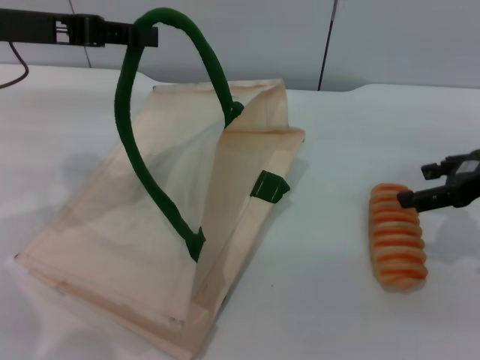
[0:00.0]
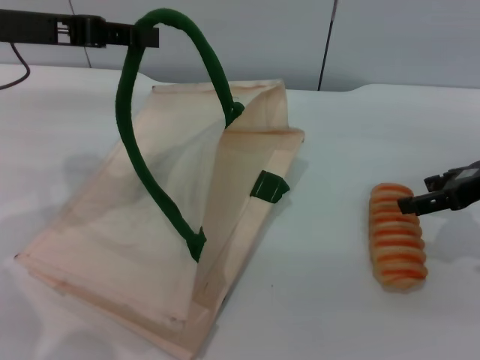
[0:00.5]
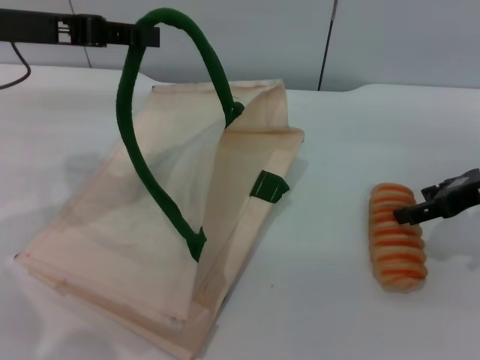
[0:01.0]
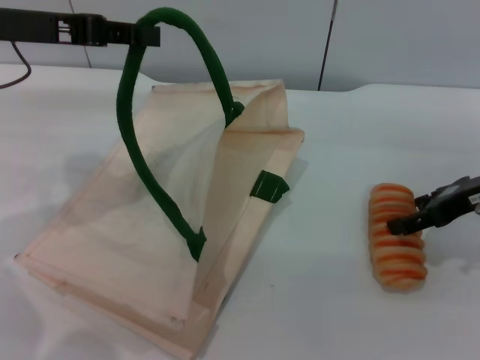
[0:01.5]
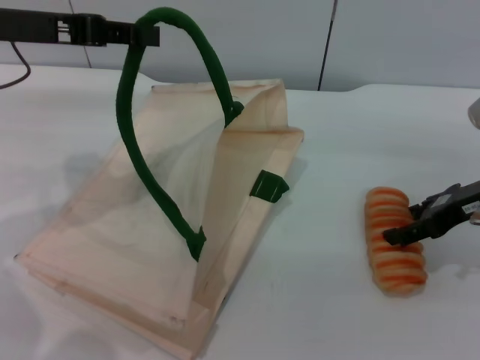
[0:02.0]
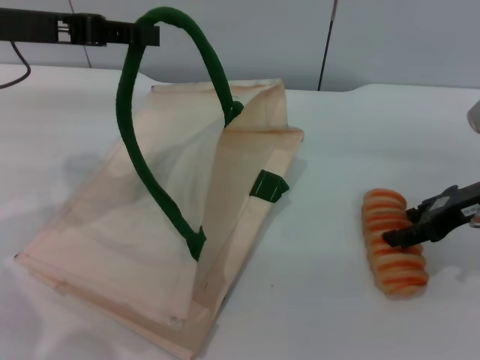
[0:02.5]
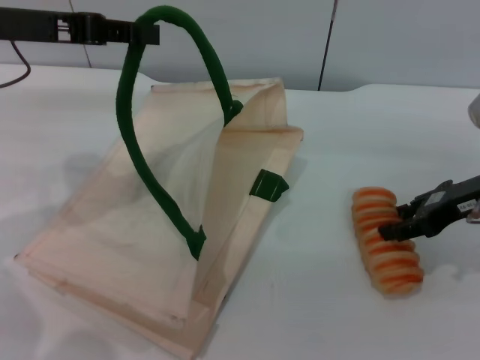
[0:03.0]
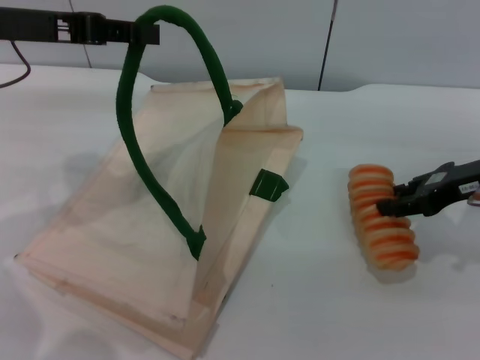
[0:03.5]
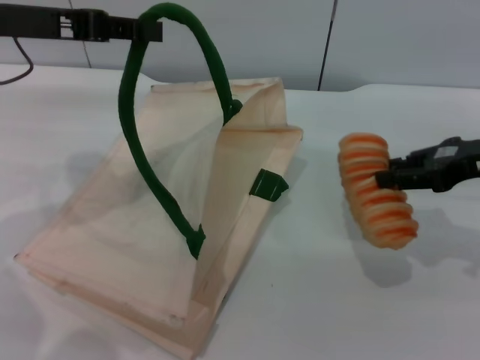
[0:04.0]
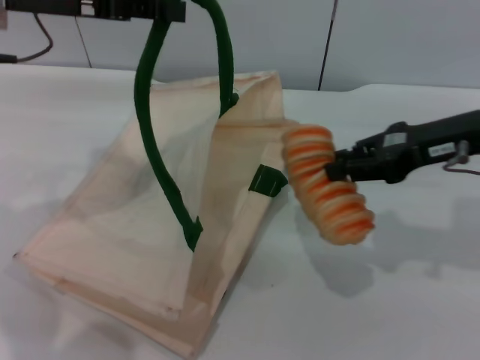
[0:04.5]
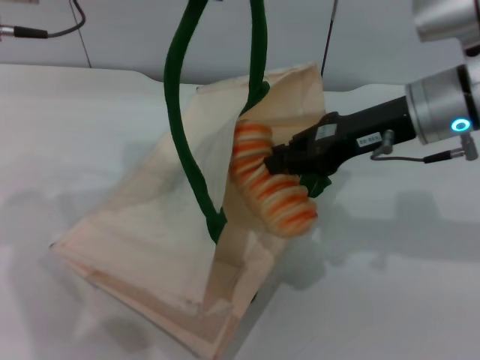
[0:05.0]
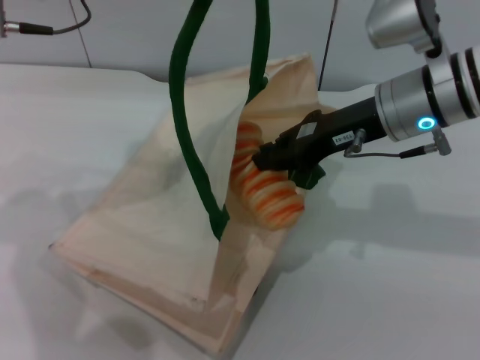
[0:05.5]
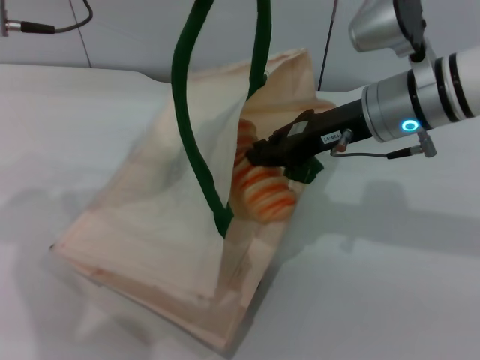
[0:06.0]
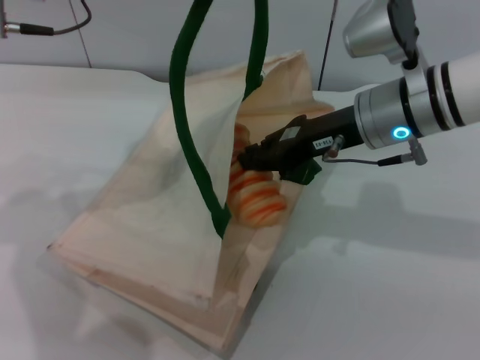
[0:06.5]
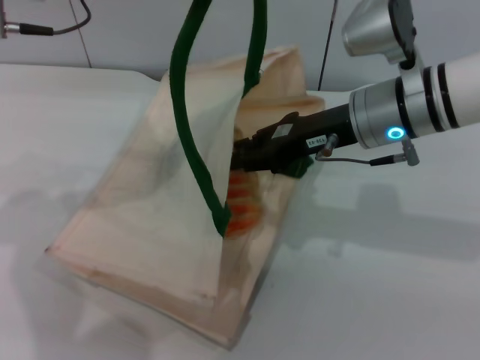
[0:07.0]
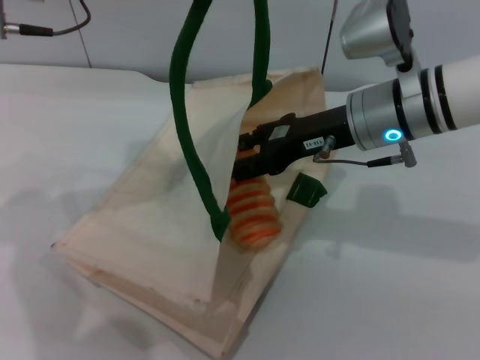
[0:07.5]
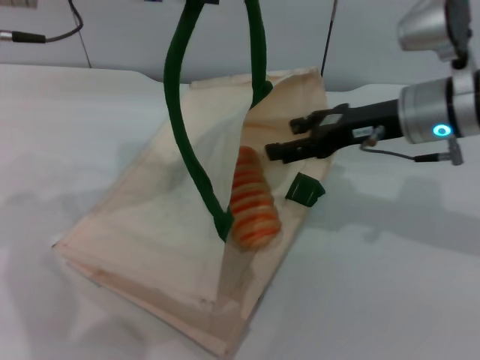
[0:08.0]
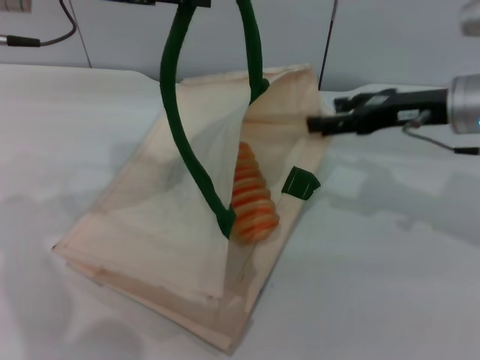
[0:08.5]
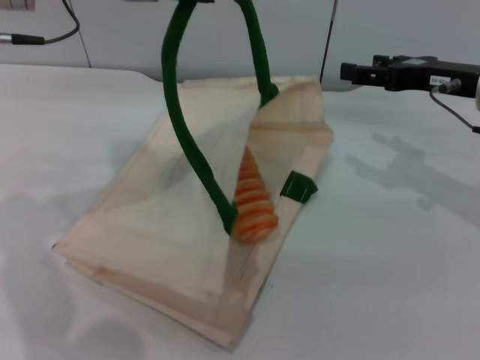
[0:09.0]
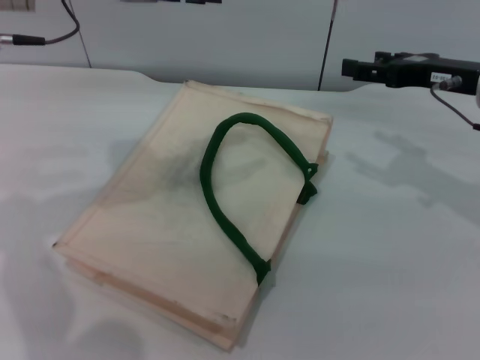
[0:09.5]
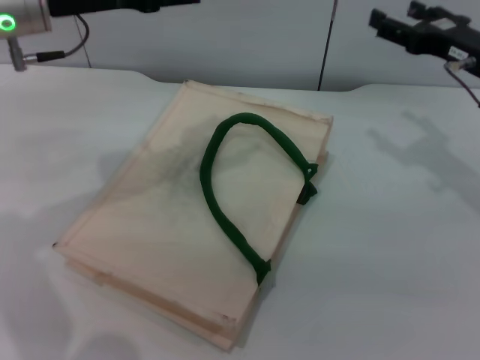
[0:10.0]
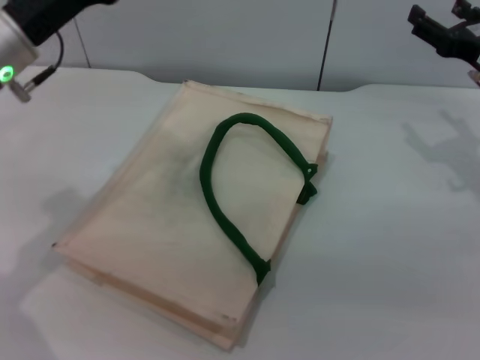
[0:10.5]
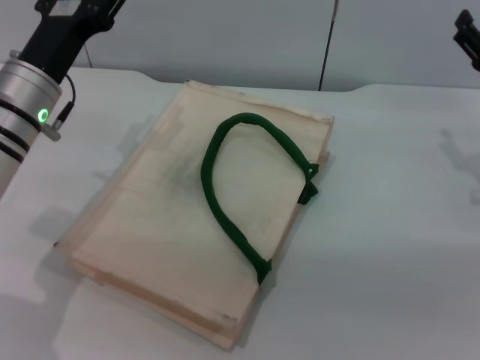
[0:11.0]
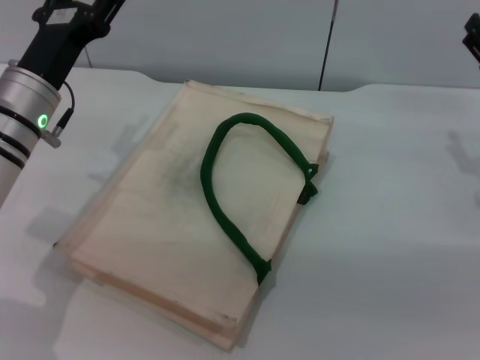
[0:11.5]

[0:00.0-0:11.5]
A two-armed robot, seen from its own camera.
Task of the whole recording: pick up the bread from the table and place it in the white handbag.
Step, 0:00.0 to 0:03.5: Pick up the bread with the right gripper.
Step, 0:04.0 to 0:08.0: Place the bread into the woven bag with the right gripper.
Step, 0:08.5 to 0:10.5: Lower the woven bag with the left gripper to close it.
0:00.0 to 0:02.0: There are only small adjustments of the grippers.
0:02.0 to 0:04.0: The right gripper closes up.
0:04.0 to 0:06.0: The right gripper moves to the left, about 15 cm. Meanwhile the left gripper shifts some 5 cm to the right.
0:06.0 to 0:07.5: The right gripper opens its fingers.
0:07.5 to 0:09.5: The left gripper opens. Meanwhile the right gripper heads to the right, covering approximately 10 cm.
0:09.5 to 0:11.5: The left gripper shifts approximately 15 cm downward, and opens up. Meanwhile the right gripper heads downward, covering roughly 5 cm.

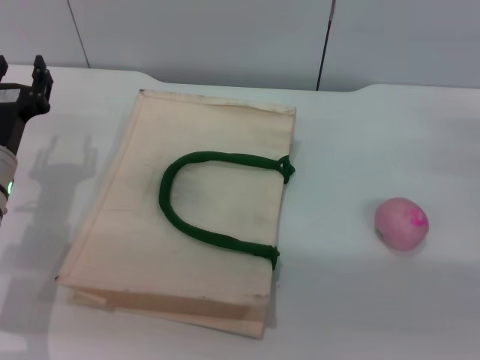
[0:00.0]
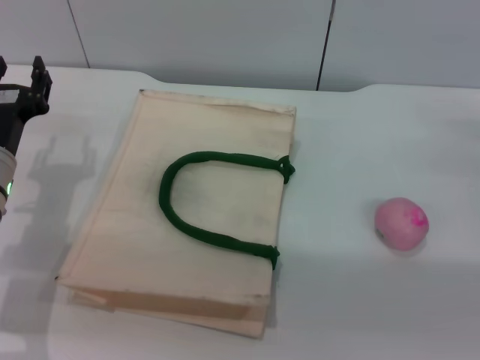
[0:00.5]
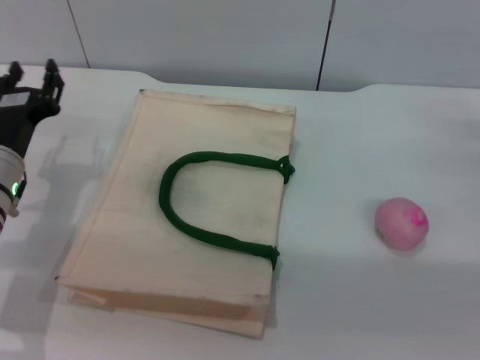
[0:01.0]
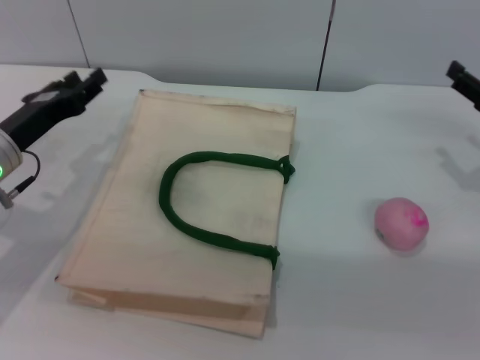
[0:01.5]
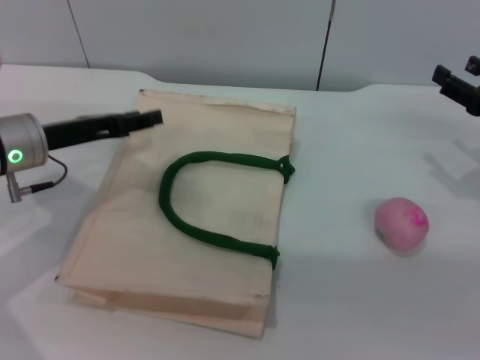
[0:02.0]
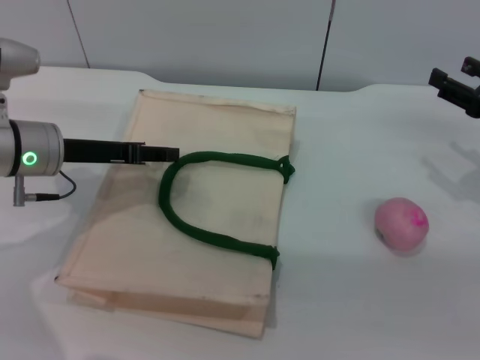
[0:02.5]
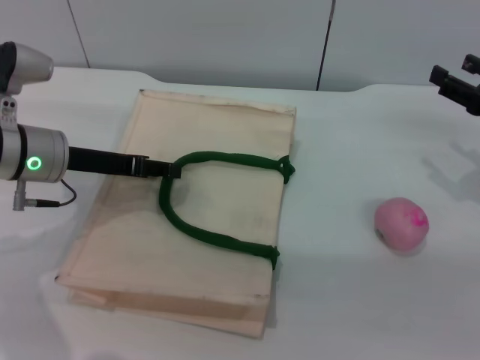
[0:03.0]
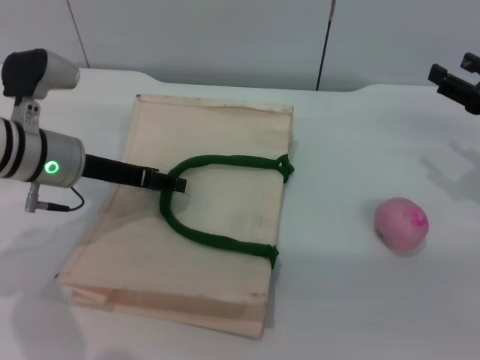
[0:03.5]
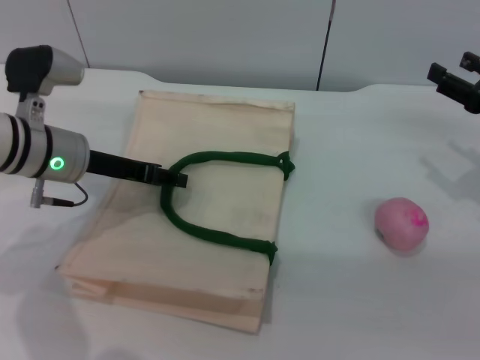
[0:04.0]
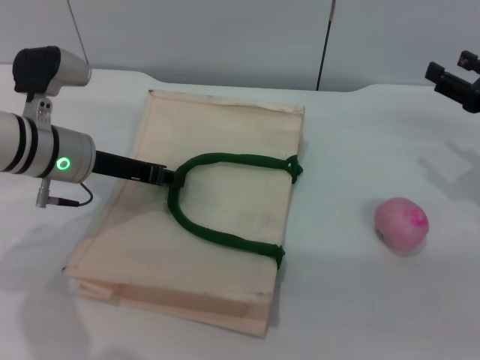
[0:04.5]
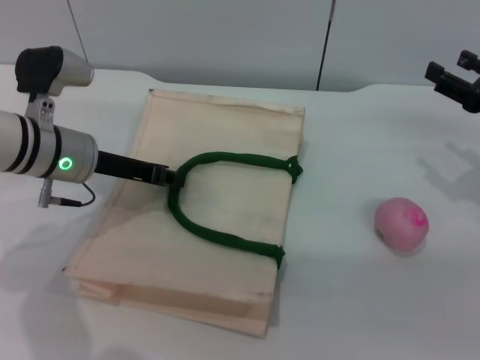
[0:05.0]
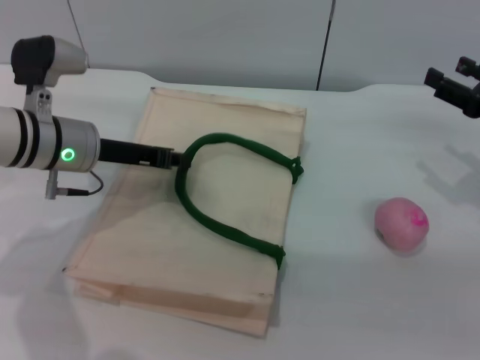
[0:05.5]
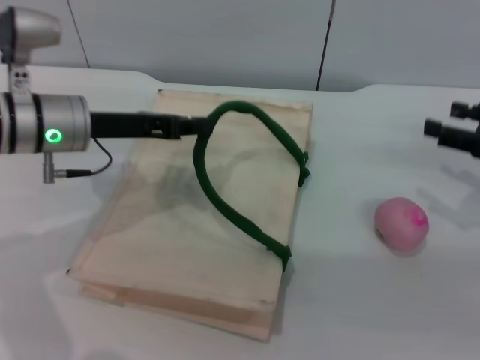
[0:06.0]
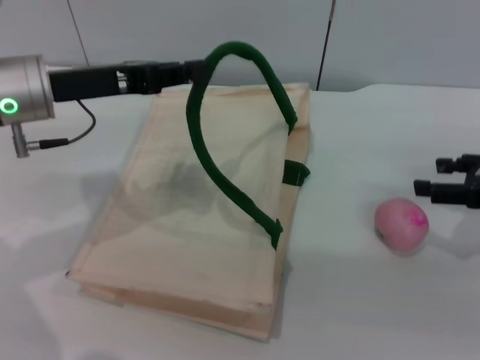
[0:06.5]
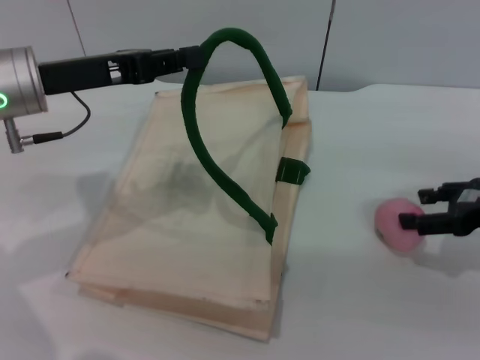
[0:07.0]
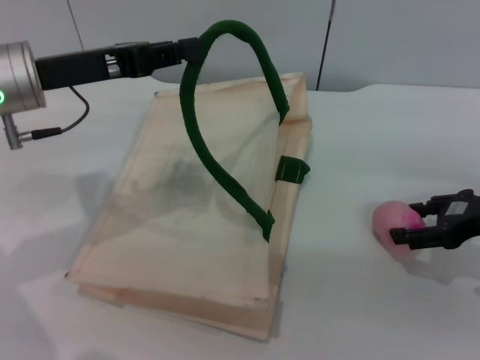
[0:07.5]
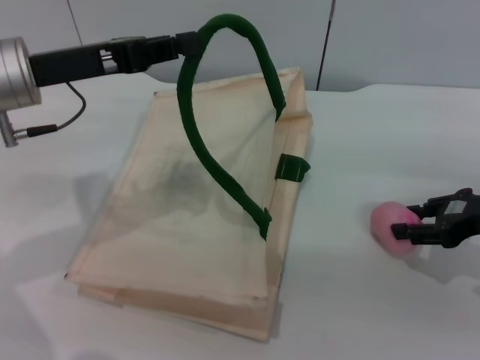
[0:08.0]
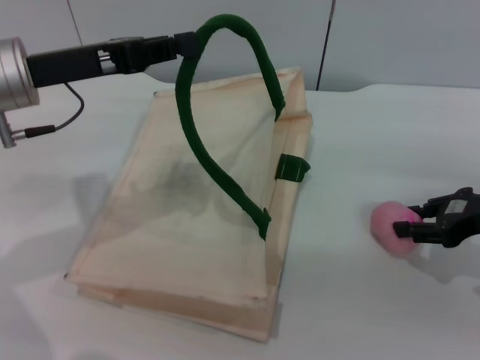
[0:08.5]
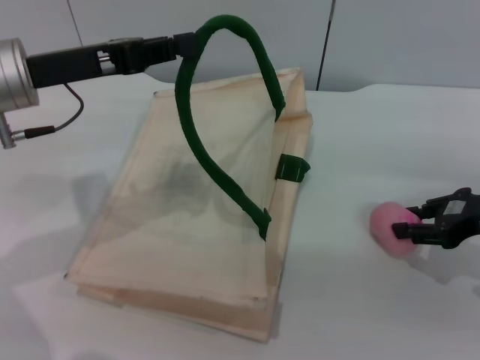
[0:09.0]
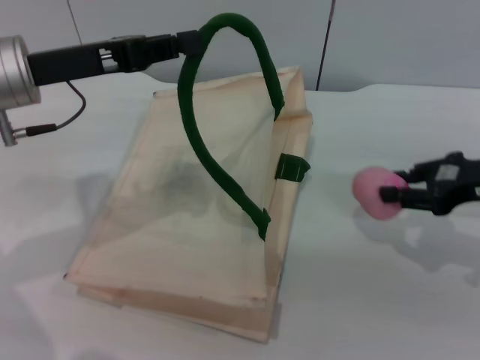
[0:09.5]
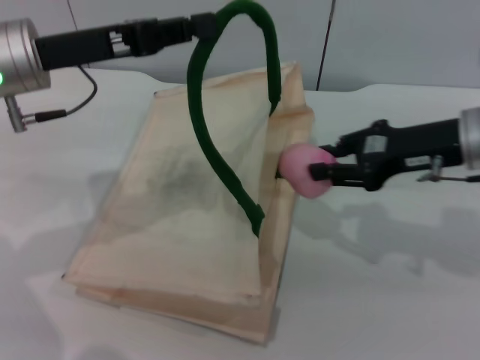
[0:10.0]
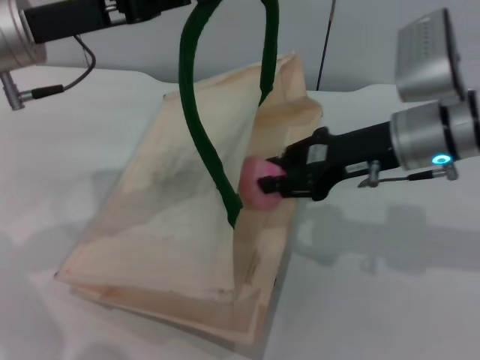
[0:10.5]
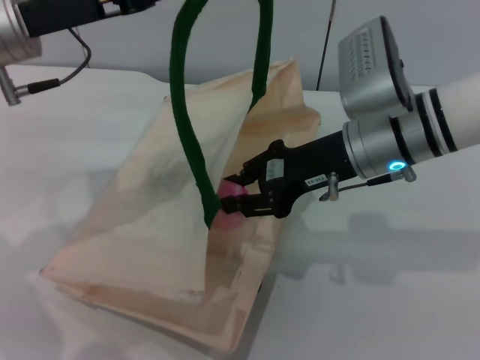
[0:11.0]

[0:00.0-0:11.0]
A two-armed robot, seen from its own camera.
Task of the whole recording: pick up the peach from the table and place it in the white handbag.
Step, 0:00.0 to 0:05.5: Lift the woven bag with the left gripper to open it.
Step, 0:06.0 to 0:09.5: Pick up the peach with the right gripper.
0:00.0 to 0:02.0: The left gripper ends up roughly 5 cm from where it was.
0:03.5 to 0:05.5: The left gripper closes.
0:05.5 to 0:07.5: The left gripper moves upward, some 10 cm.
0:07.5 to 0:09.0: The right gripper closes its fingers.
0:09.0 to 0:11.0: The right gripper is displaced to the left by roughly 20 cm.

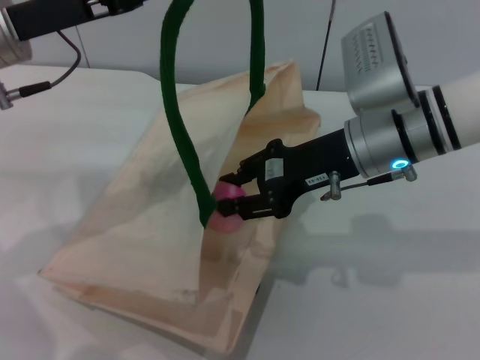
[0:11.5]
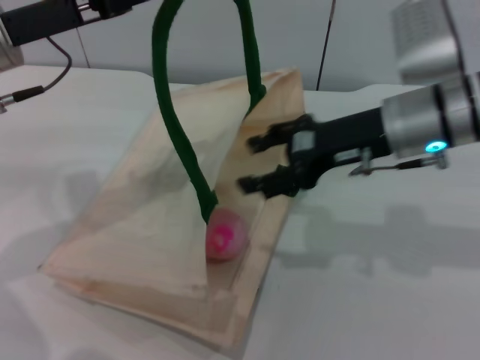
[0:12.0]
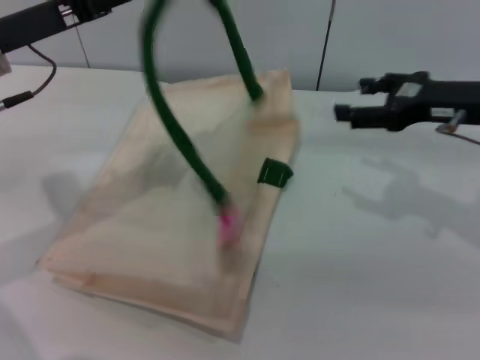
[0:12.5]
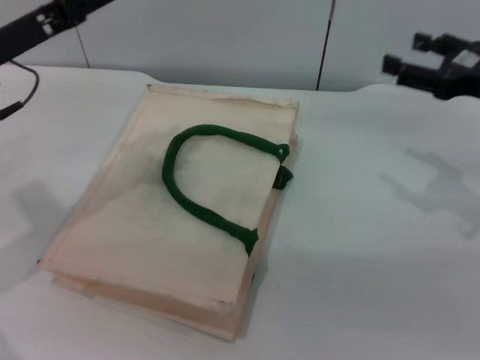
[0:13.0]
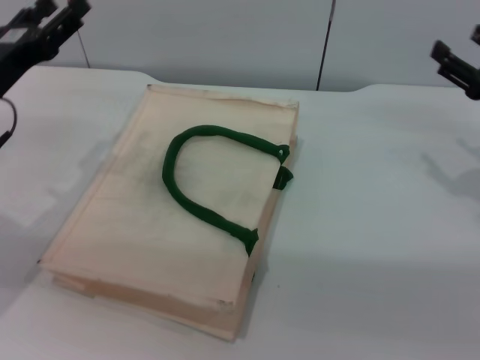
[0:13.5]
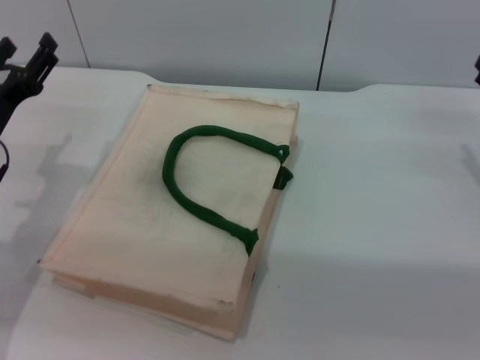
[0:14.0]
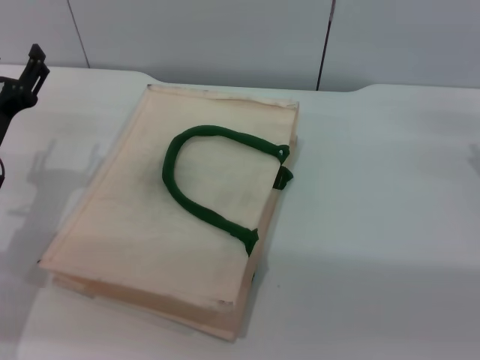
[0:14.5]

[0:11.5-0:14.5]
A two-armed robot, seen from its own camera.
Task of the whole recording: pick up the peach from the table and place it in the white handbag.
Step, 0:12.5 to 0:13.0: Lower the woven bag with the left gripper to close it.
0:11.5 to 0:13.0: The left gripper changes place by about 5 cm, and opens; the right gripper shifts some 15 cm to the right, and opens.
0:13.0 to 0:14.5: The grippers both shift downward by about 10 cm. The left gripper opens up.
